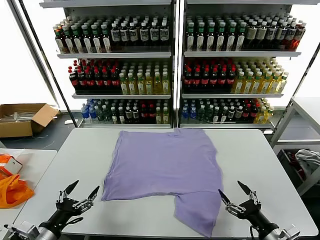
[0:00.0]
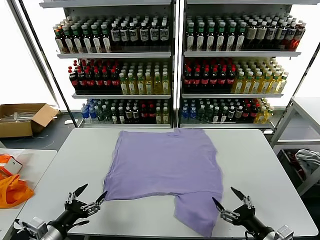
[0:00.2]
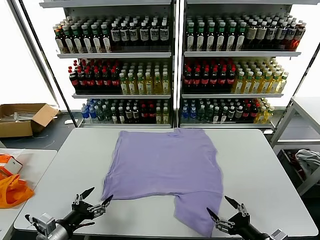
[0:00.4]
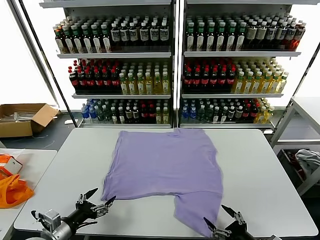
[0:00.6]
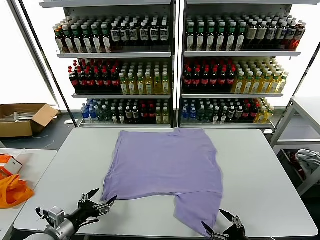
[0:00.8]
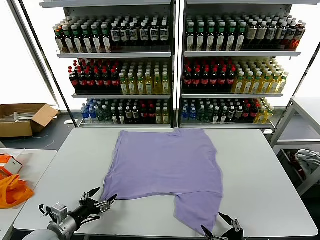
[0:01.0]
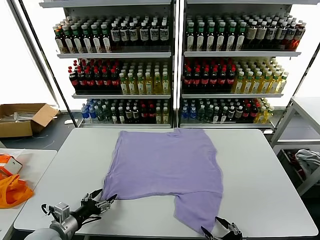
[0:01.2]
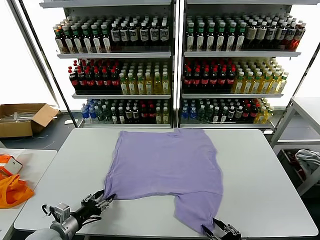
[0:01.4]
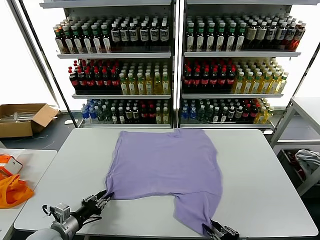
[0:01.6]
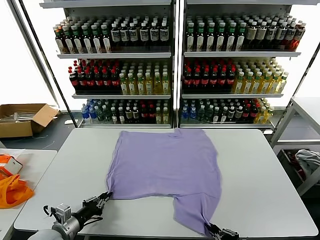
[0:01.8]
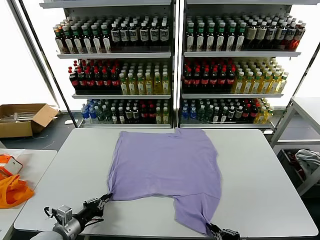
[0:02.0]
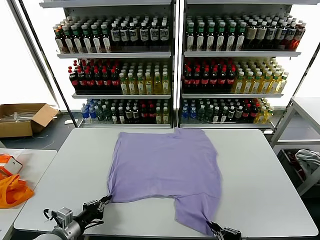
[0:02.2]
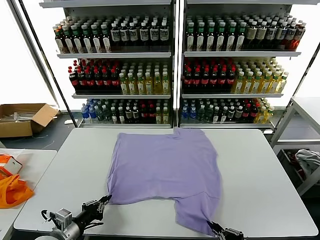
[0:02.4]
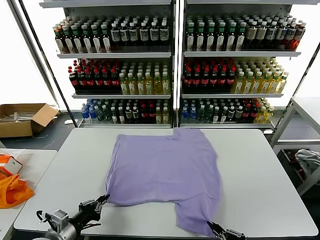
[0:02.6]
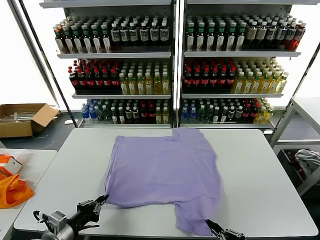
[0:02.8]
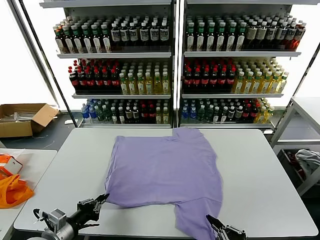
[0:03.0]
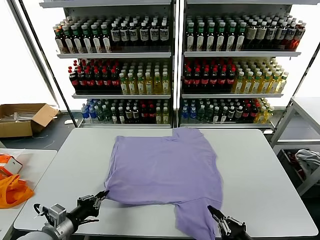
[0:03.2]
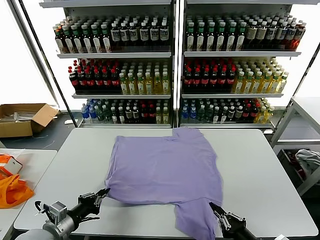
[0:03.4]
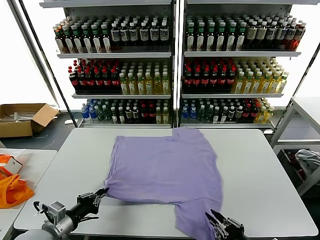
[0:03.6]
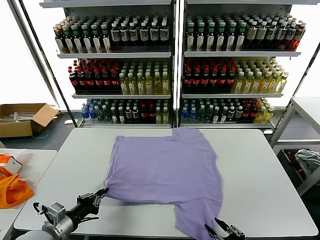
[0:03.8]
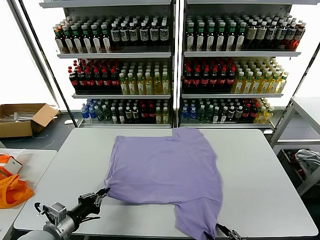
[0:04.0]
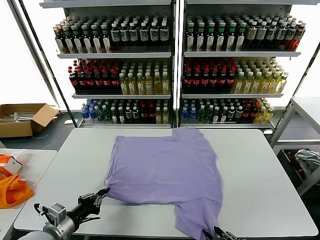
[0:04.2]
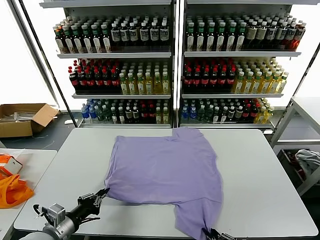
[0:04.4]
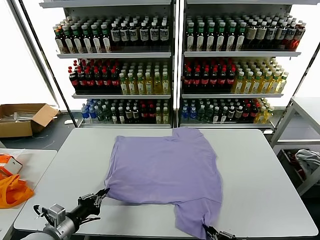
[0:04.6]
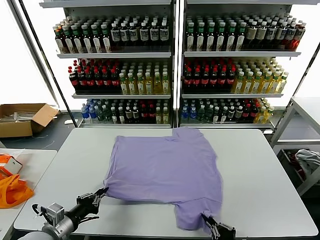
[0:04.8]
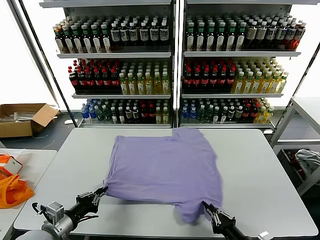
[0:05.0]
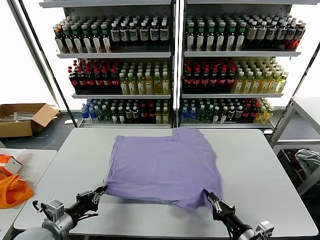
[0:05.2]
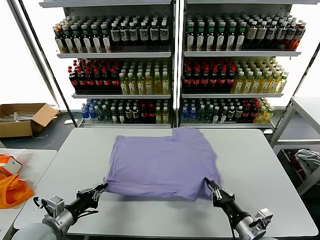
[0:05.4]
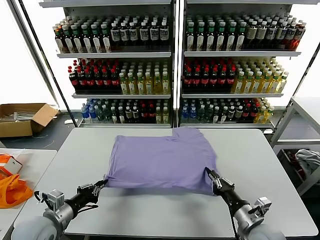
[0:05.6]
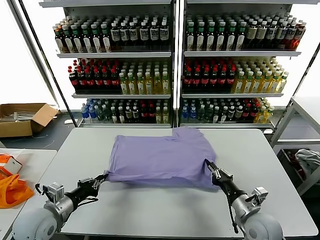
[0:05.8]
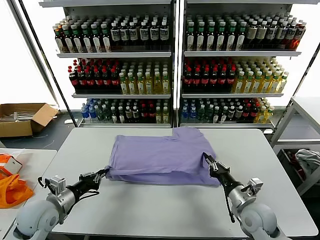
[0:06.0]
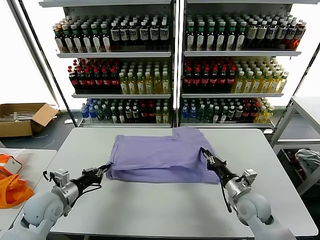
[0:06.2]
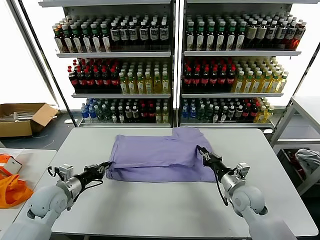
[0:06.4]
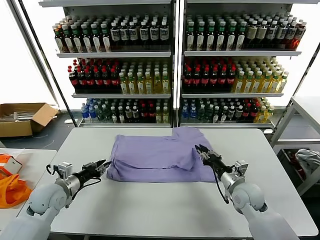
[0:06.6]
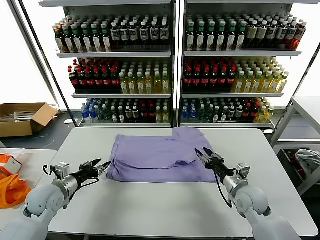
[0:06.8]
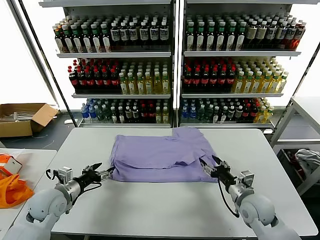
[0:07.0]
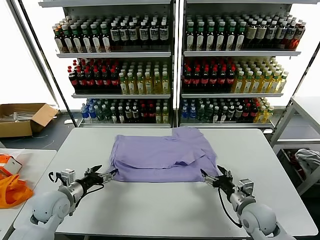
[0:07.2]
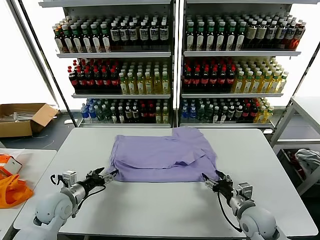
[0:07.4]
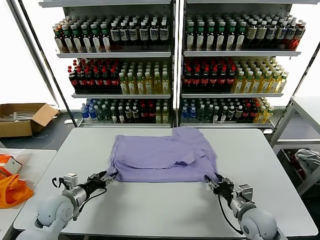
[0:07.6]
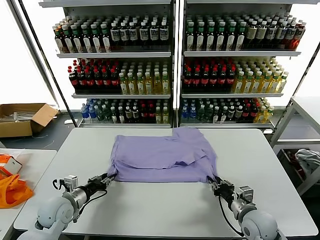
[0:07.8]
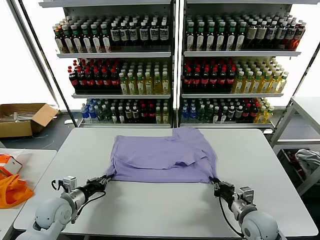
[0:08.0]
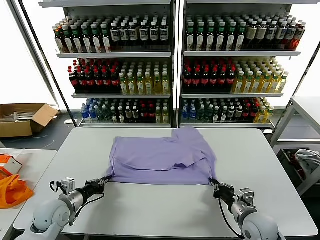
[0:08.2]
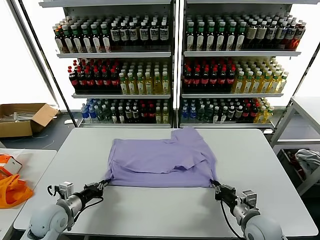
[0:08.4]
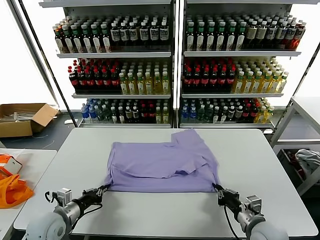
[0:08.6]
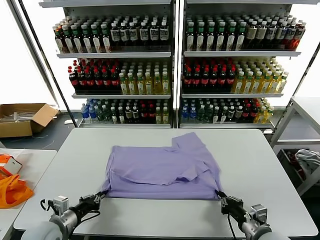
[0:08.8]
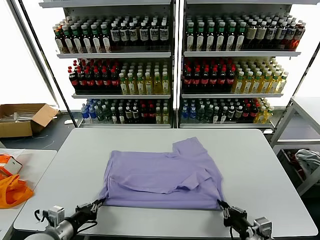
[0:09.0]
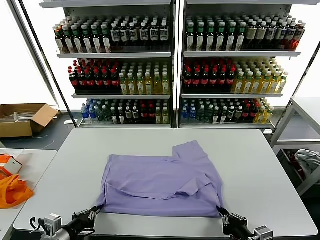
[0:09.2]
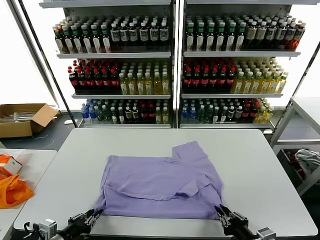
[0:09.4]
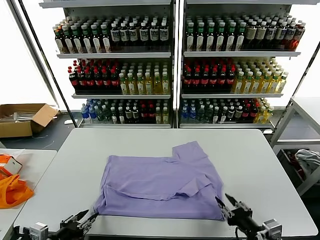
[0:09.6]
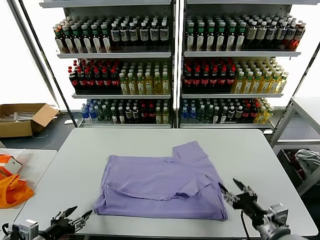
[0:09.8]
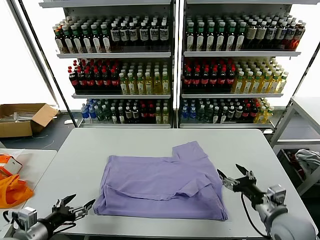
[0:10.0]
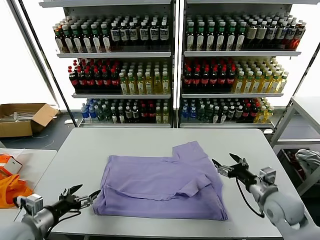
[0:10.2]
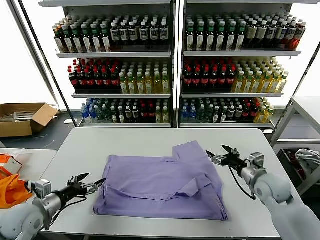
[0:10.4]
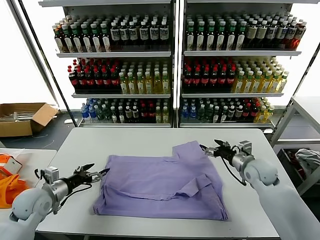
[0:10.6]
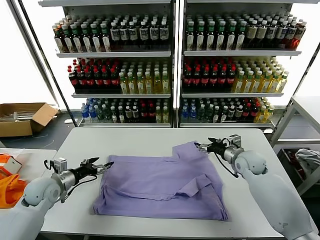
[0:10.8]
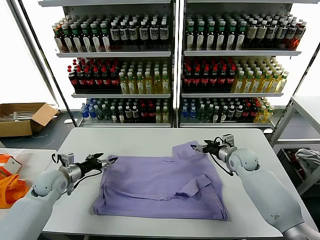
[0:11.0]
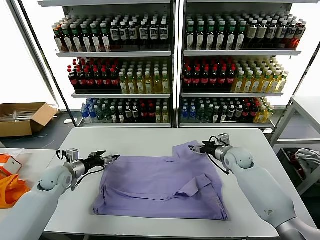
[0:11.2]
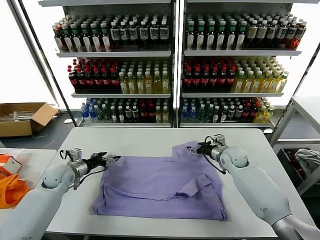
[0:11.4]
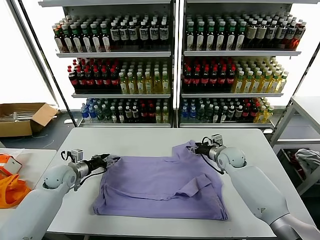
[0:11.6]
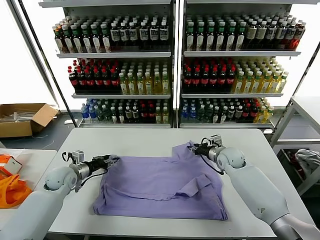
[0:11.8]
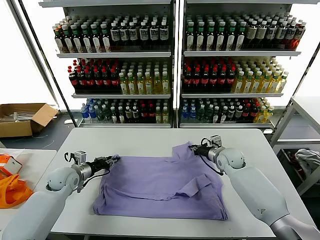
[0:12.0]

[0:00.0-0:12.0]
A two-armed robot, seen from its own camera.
Task of the whole recording: fold and organize the clothes.
Step, 0:00.0 to 0:01.8: use both grippers simultaneously to clamp the lower edge of the clothing fabric.
Step, 0:02.0 to 0:06.4: use both grippers to drag the lower edge of the fabric forward and fold it over the upper edge.
Step, 0:06.6 to 0:09.4: Drag the clothes downward with both gripper.
0:01.6 to 0:03.0: The left gripper is displaced upward by about 5 cm.
0:03.0 to 0:04.4: The right gripper opens, then closes again.
0:04.4 to 0:06.0: The left gripper travels forward by some 10 cm. Meanwhile the right gripper moves forward, some 20 cm.
0:06.0 to 0:07.6: The right gripper opens. Meanwhile the left gripper is displaced downward by roughly 5 cm, and opens up.
0:07.6 to 0:09.0: The two grippers go approximately 15 cm backward. The left gripper closes up. Meanwhile the right gripper closes its fingers.
0:09.0 to 0:10.4: The right gripper heads forward, covering roughly 25 cm, and opens up. Meanwhile the left gripper is displaced forward and to the left by roughly 10 cm, and opens its fingers.
0:10.4 to 0:12.0: The right gripper shifts approximately 15 cm forward and to the left, and closes its fingers, while the left gripper heads forward, covering some 15 cm, and closes its fingers.

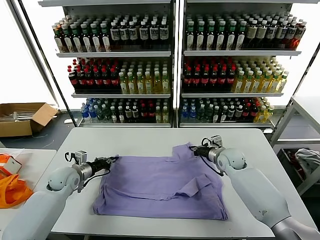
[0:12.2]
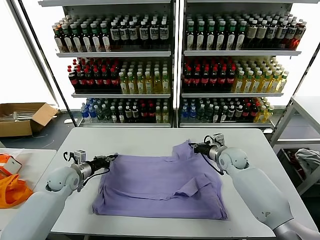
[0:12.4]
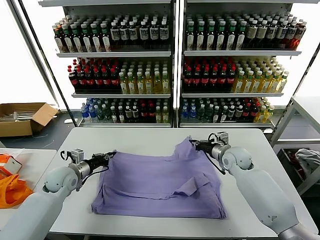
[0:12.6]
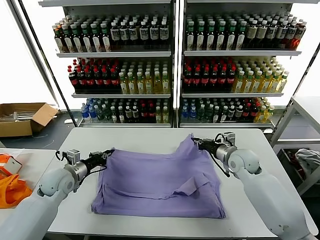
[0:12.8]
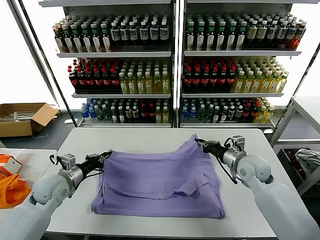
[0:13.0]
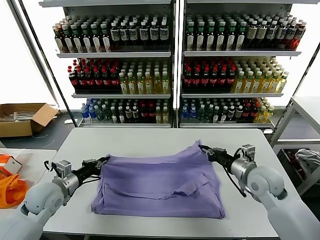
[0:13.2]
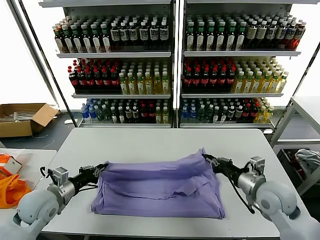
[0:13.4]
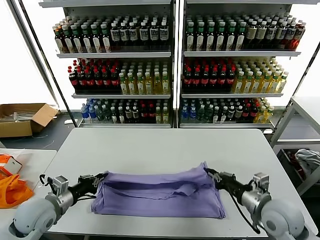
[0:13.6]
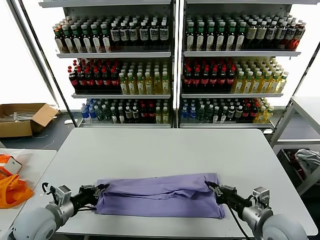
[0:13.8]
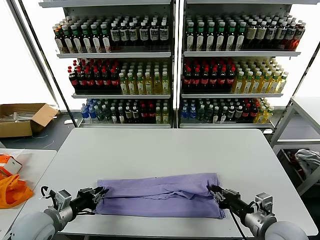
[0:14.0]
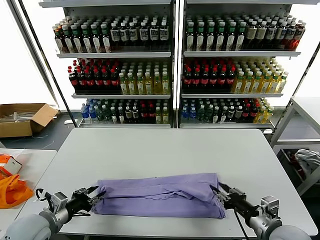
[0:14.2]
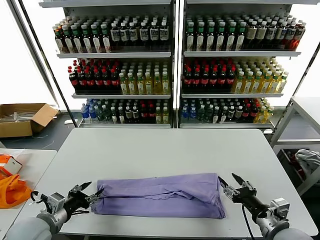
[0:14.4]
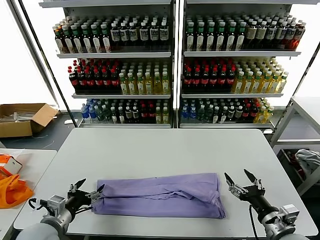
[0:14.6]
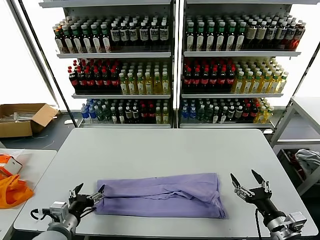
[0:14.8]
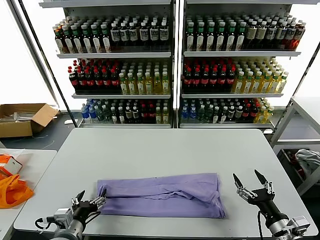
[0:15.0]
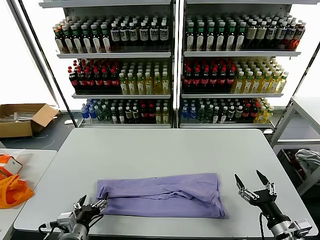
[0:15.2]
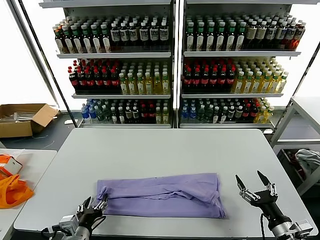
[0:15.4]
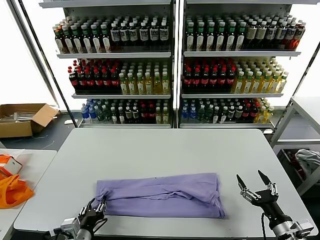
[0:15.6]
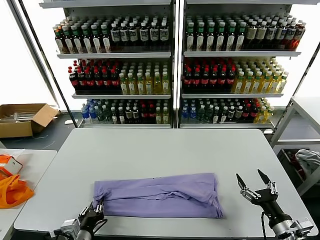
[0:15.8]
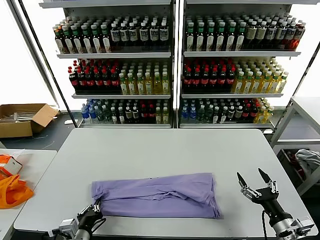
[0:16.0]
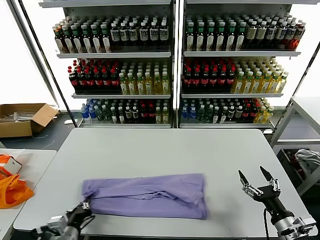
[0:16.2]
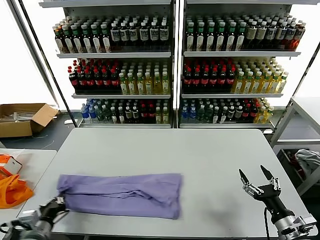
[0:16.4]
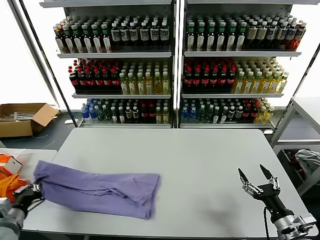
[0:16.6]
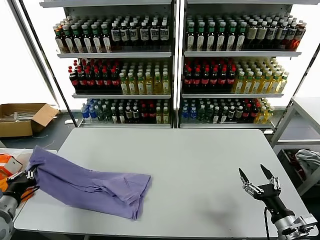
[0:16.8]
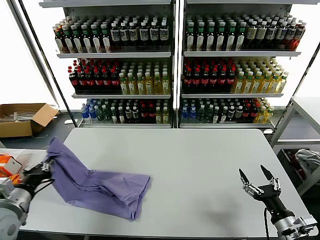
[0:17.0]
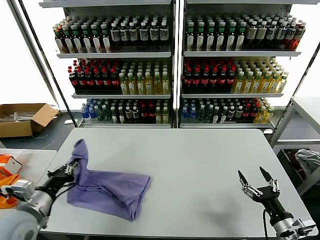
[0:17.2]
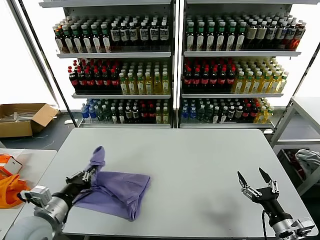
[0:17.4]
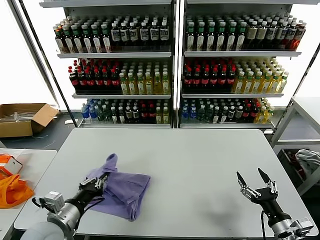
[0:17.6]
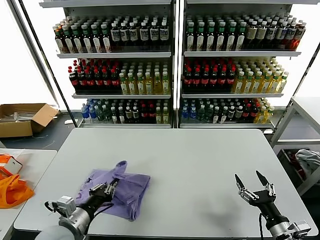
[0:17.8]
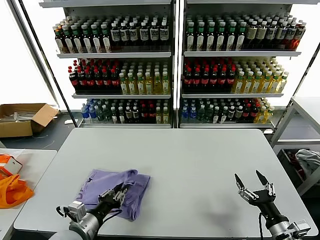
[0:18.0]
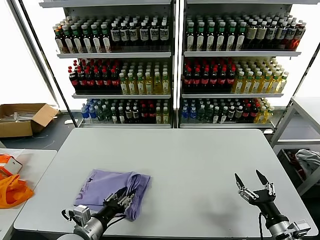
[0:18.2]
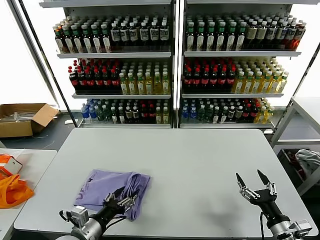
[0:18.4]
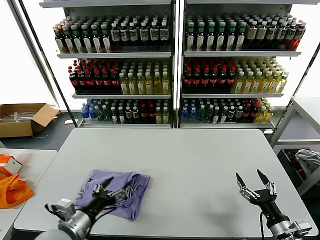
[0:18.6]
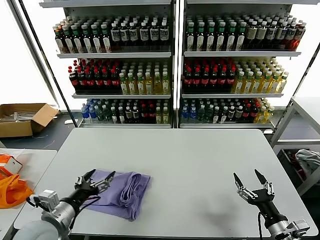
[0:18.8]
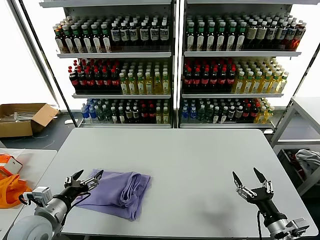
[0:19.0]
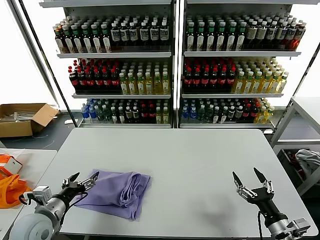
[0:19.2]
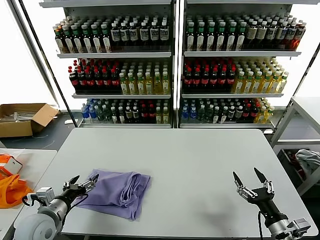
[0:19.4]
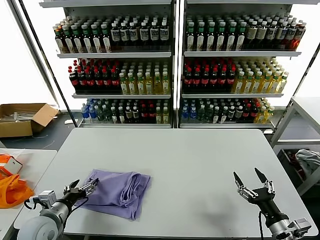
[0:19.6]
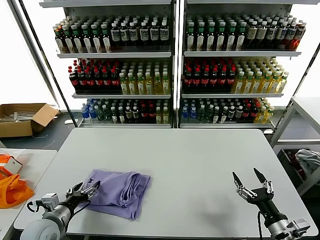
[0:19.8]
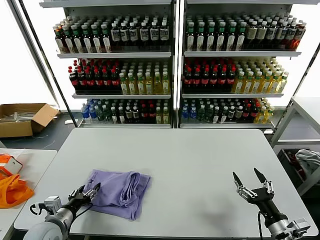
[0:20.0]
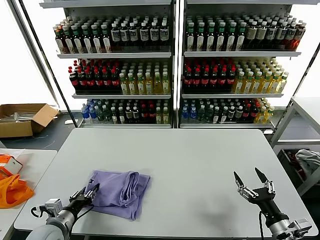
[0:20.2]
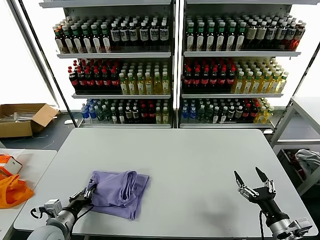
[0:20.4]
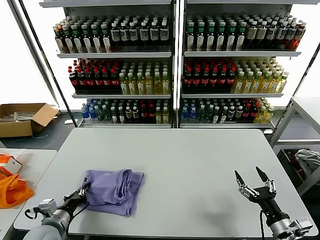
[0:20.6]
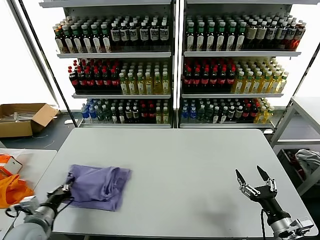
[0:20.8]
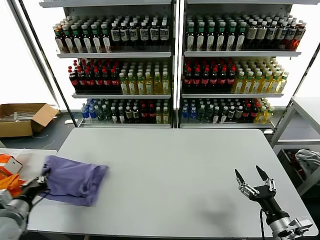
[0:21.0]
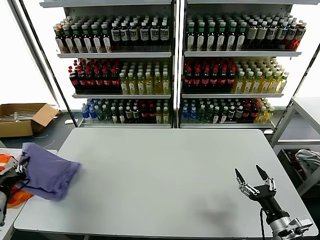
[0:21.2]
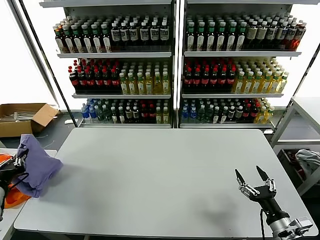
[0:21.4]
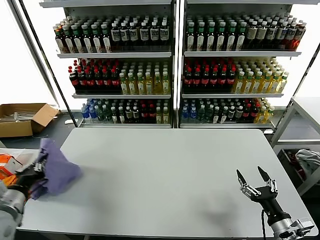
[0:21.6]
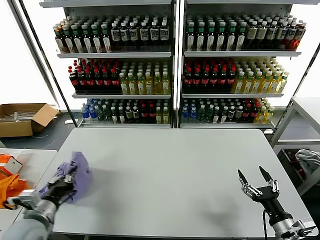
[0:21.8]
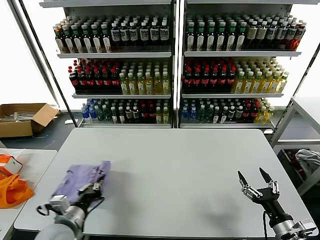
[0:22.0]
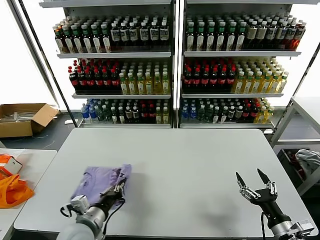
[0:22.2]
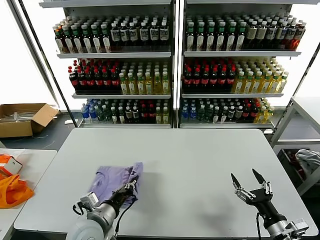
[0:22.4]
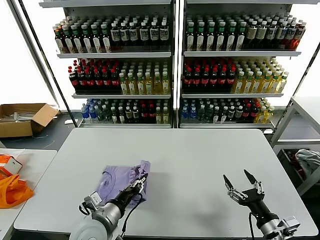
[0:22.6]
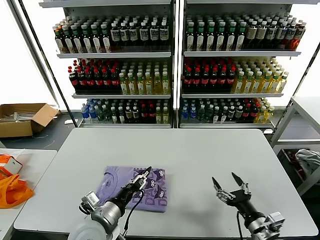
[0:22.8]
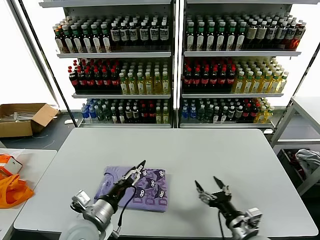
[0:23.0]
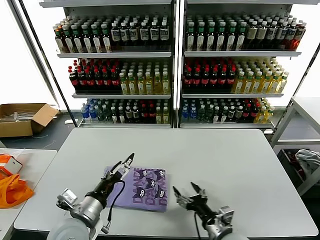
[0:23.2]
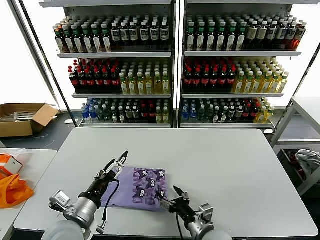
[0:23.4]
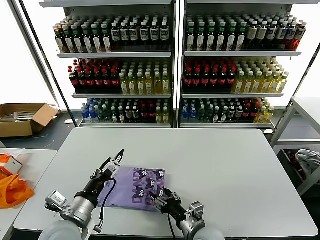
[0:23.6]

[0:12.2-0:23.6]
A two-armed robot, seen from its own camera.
Task of the whole recording: fold and organize the clothes.
Step, 0:12.2 to 0:14.2: use both grippers to drag the upper edge of the fabric backward and fold it over the lower edge.
Step, 0:14.4 to 0:15.8: use the left gripper to clamp the left edge of the fabric.
Step, 0:16.0 to 0:18.4: use the left gripper to drag the left edge of the fabric to the left and folds it over the right edge.
Step, 0:18.6 to 0:22.6: Flip the folded clothes over with left gripper.
0:12.2 to 0:13.6: The left gripper shifts roughly 15 cm backward. The right gripper shifts roughly 25 cm backward.
0:13.6 to 0:15.0: The right gripper shifts about 10 cm backward, downward and to the right, and opens. The left gripper goes some 15 cm backward, to the right and downward, and opens.
0:15.0 to 0:16.4: The left gripper heads to the left, covering some 10 cm, and closes its fingers.
0:16.4 to 0:17.8: The left gripper moves to the right, about 10 cm.
0:17.8 to 0:19.4: The left gripper is displaced to the left by some 10 cm, and opens.
0:19.4 to 0:20.8: The left gripper closes.
0:20.8 to 0:22.2: The left gripper moves to the right, about 15 cm.
0:22.2 to 0:23.6: The left gripper travels upward by approximately 5 cm, and opens up. The right gripper is displaced to the left by about 25 cm.
